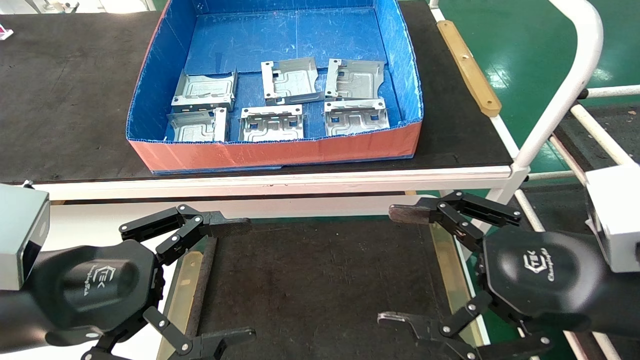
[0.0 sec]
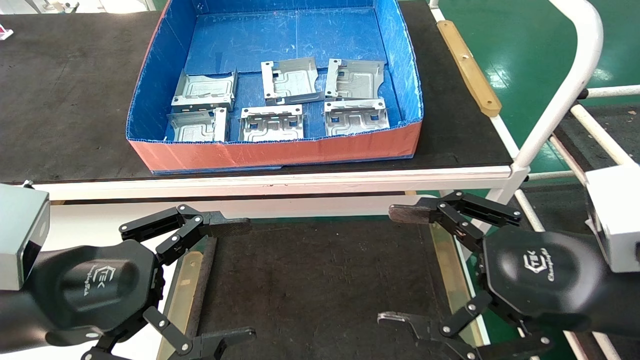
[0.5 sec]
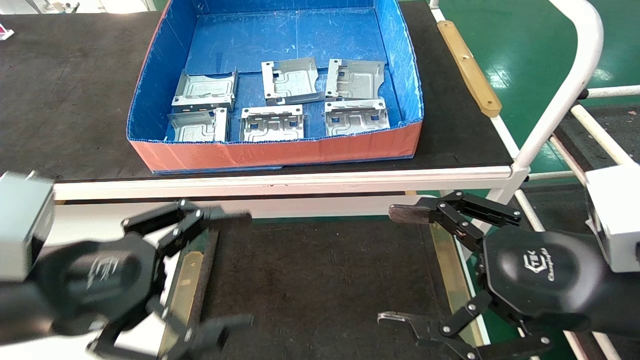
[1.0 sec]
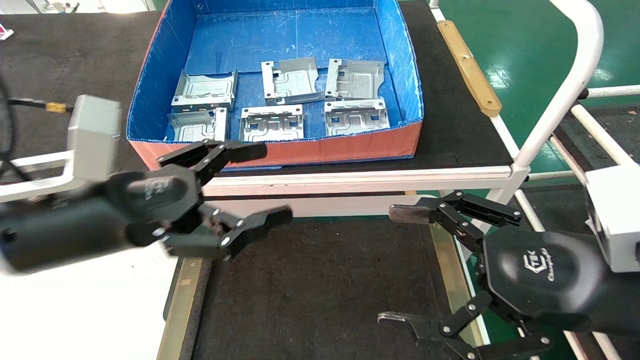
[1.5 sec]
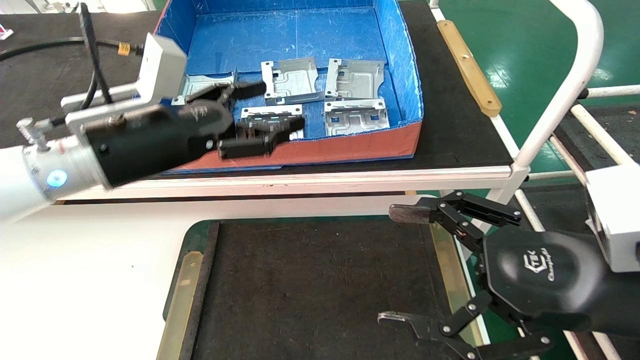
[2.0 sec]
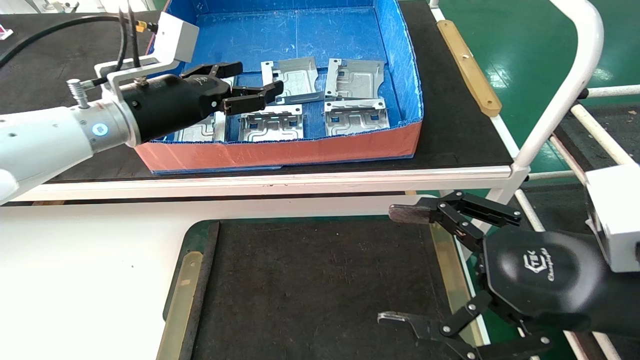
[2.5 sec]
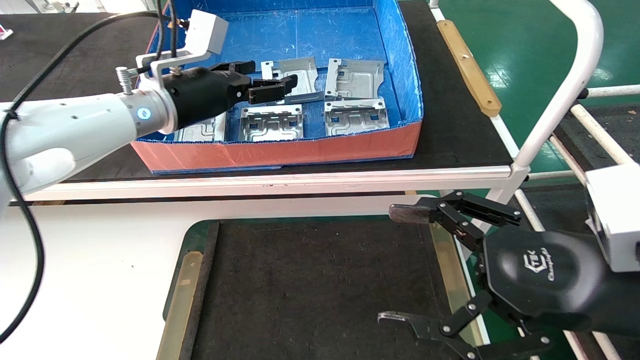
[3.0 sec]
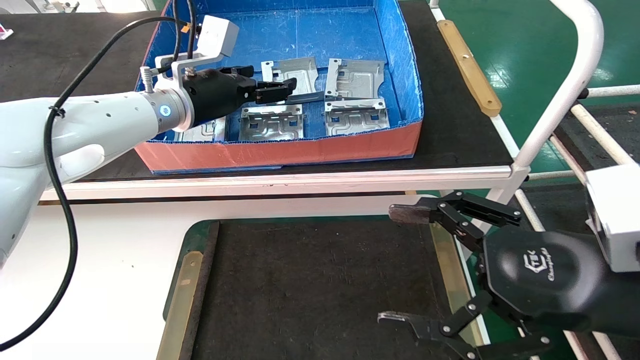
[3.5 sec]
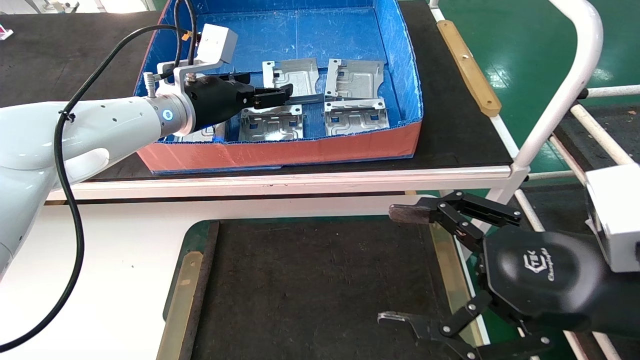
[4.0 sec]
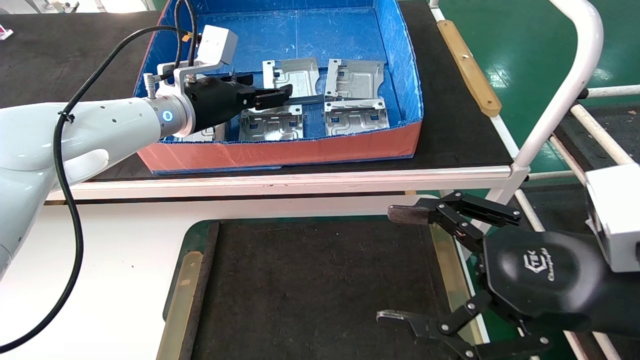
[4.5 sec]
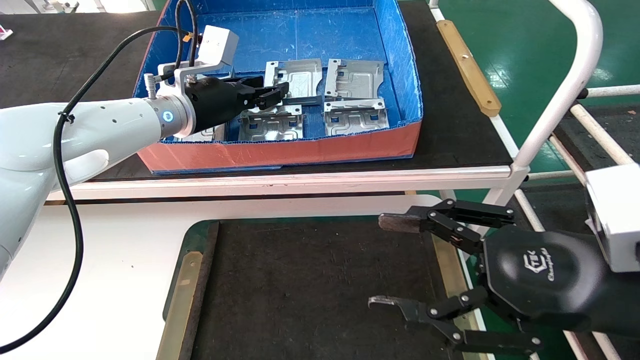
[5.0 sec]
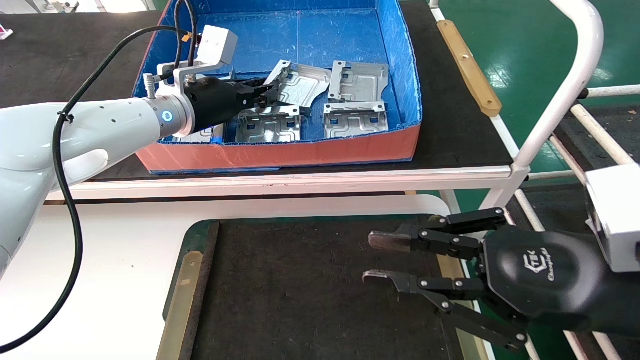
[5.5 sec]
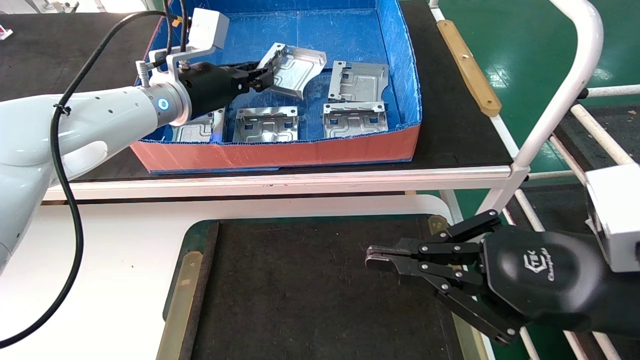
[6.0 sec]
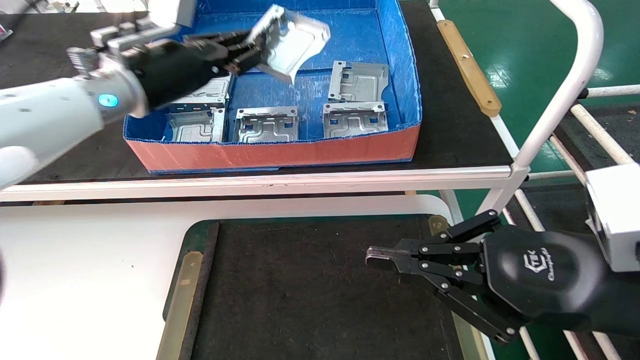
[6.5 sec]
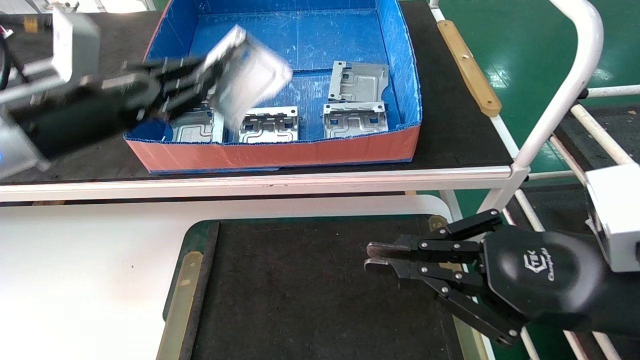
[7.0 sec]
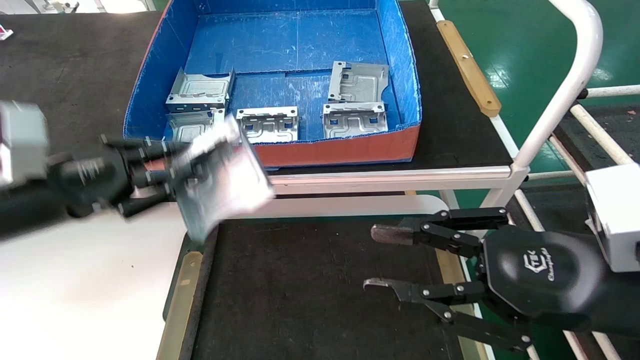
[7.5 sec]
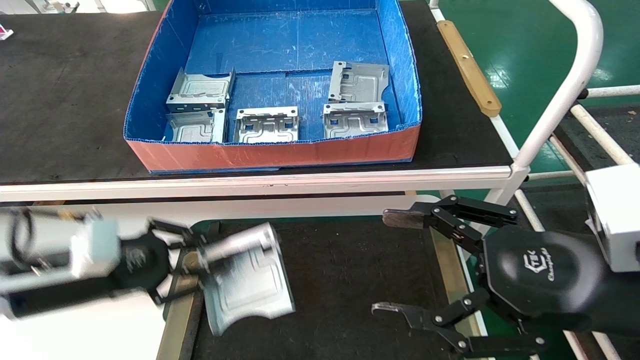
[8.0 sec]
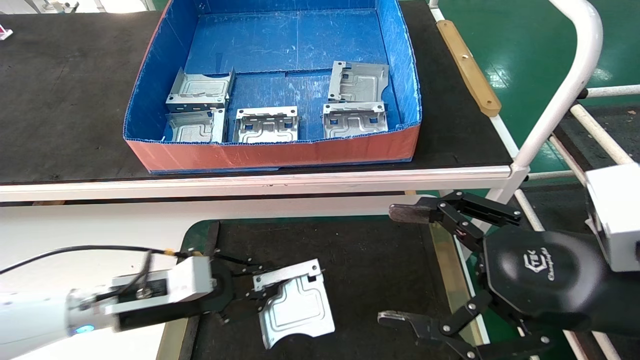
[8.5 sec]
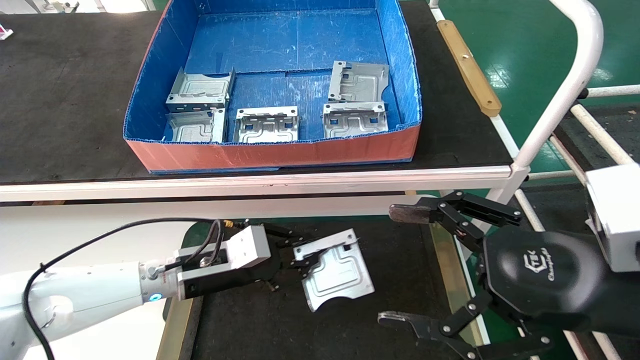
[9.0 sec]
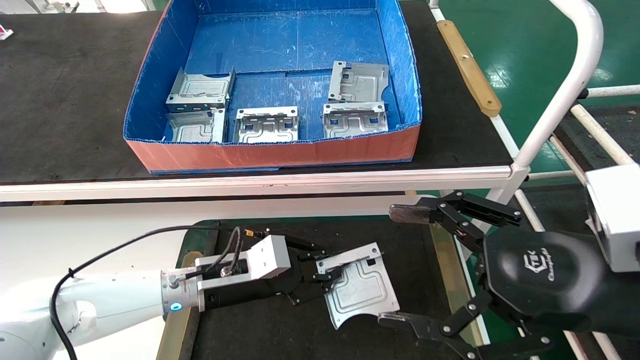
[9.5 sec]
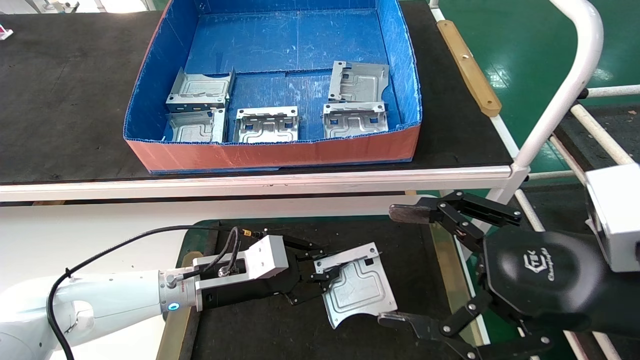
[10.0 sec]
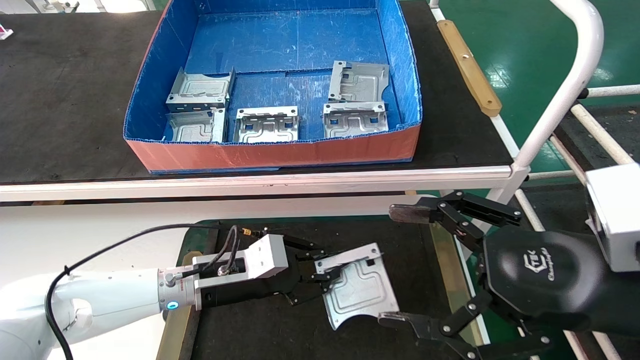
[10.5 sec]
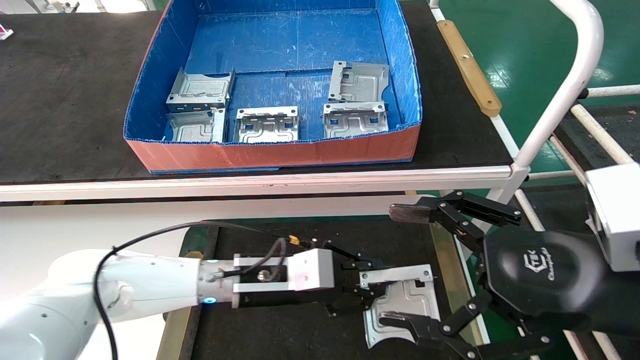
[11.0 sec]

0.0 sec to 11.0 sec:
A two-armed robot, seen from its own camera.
Task of the whole recording: take the accessories out of the box and place them on the table.
Step, 1.0 sec to 5.5 sec: Pick up the hard drive bracket from the feeding area.
0.0 sec to 2.0 sec: The left gripper goes about 15 cm forward and upward.
2.0 sec to 3.5 sec: The left gripper is displaced forward by about 15 cm.
3.5 sec to 5.5 sec: The left gripper closes up, while the right gripper closes up.
5.5 sec to 7.5 sec: The left gripper goes roughly 25 cm backward, to the left and downward.
7.5 sec to 9.0 sec: The left gripper moves to the right, downward and forward, approximately 20 cm, while the right gripper opens.
9.0 sec to 11.0 sec: The left gripper is displaced to the right by about 10 cm.

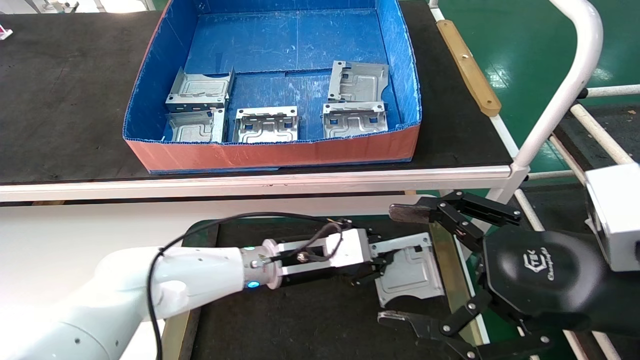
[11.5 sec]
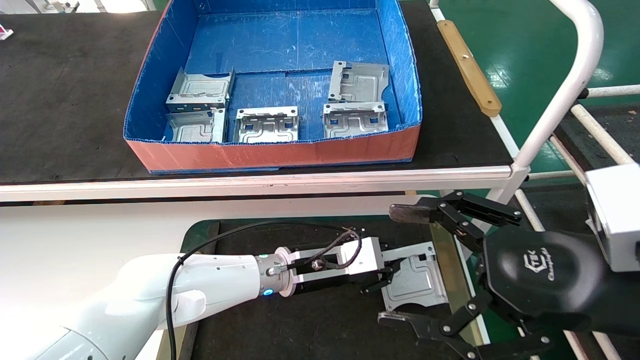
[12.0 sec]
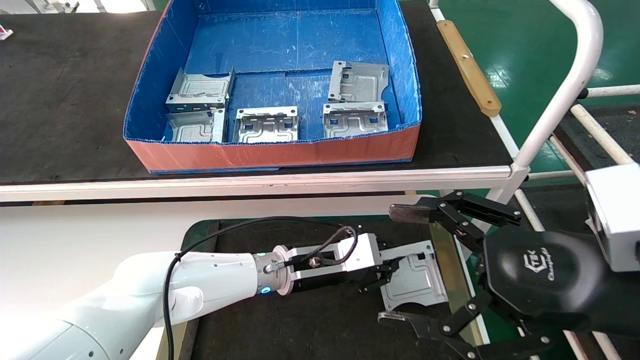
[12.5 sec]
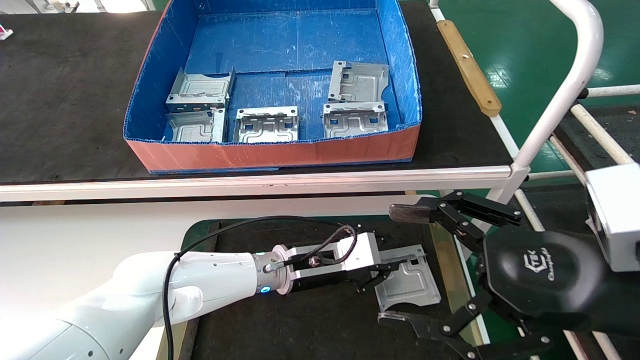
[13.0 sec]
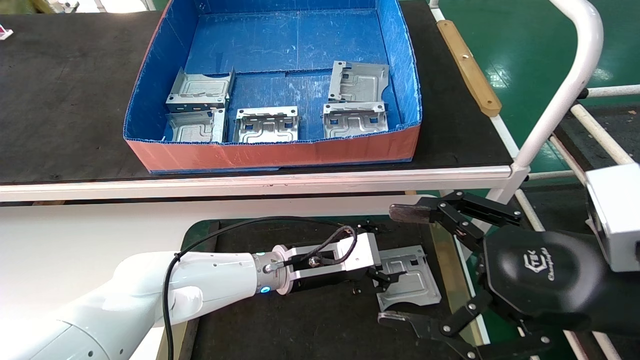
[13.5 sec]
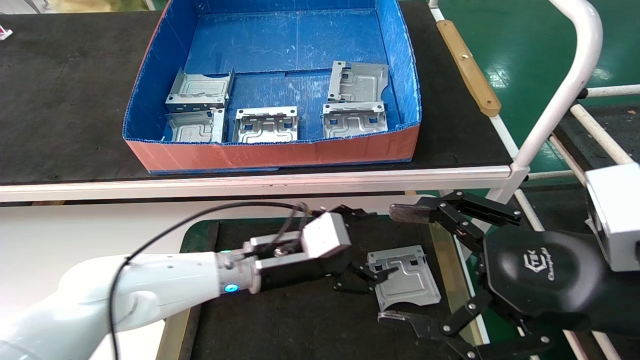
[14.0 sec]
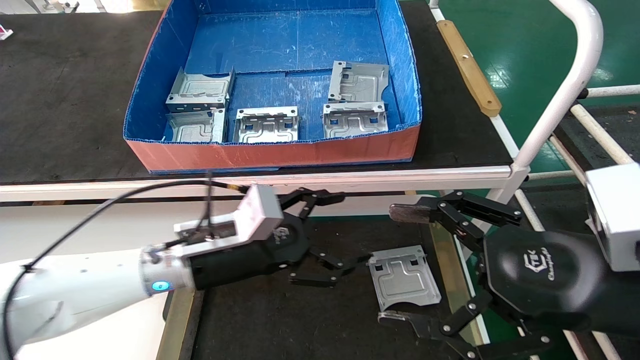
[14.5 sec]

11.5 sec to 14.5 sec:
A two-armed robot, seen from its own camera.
Task of the whole recording: take the accessories out of the box and place them on the table.
11.5 sec to 13.0 sec: The grippers stay close to where they were, moving slightly.
13.0 sec to 14.5 sec: The left gripper moves to the left, backward and upward, about 15 cm, and opens its fingers.
